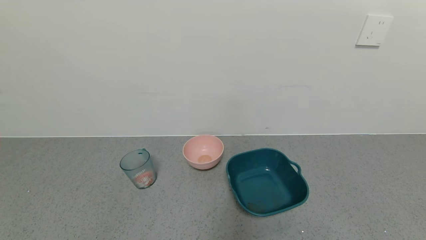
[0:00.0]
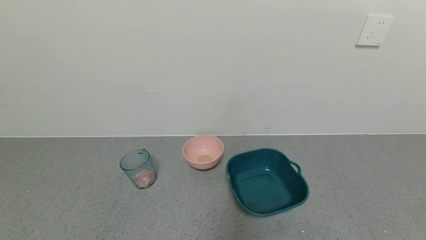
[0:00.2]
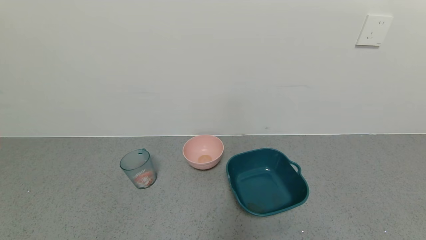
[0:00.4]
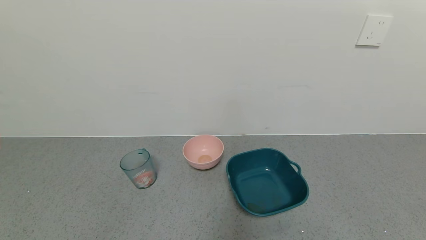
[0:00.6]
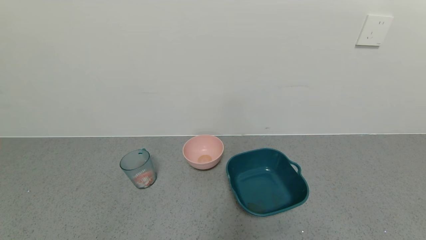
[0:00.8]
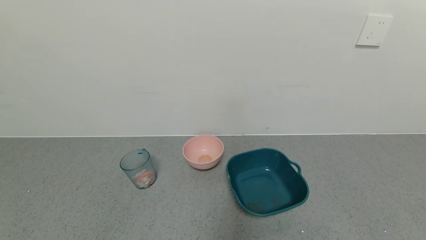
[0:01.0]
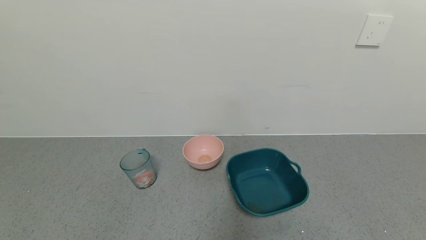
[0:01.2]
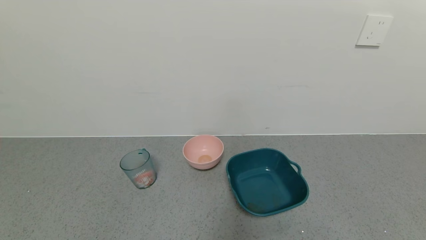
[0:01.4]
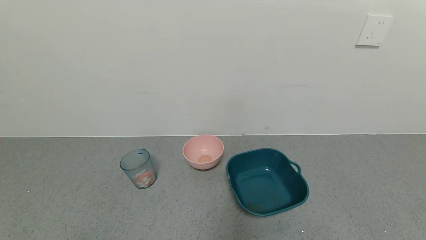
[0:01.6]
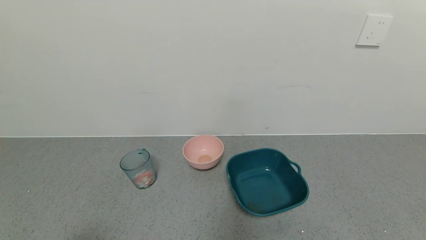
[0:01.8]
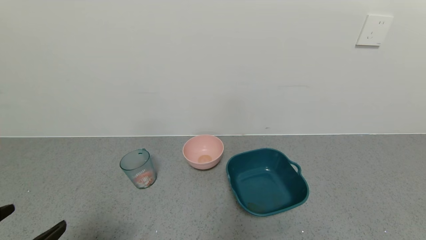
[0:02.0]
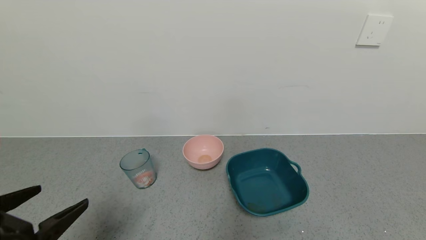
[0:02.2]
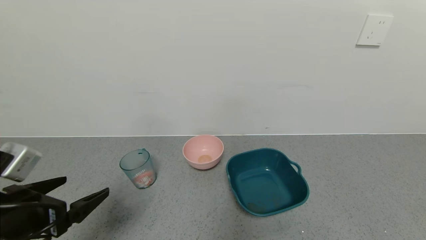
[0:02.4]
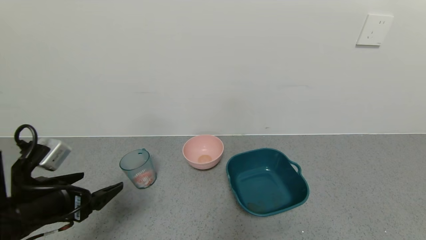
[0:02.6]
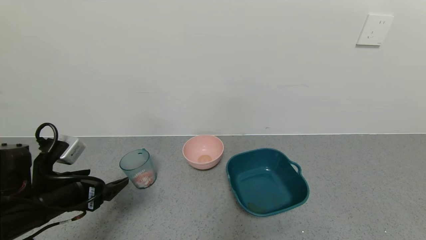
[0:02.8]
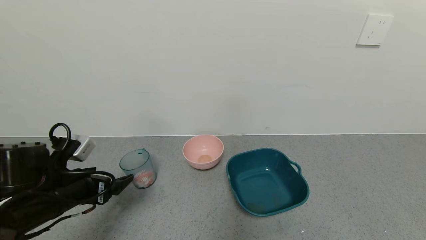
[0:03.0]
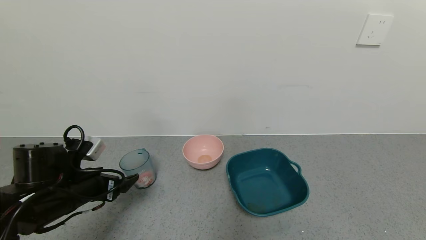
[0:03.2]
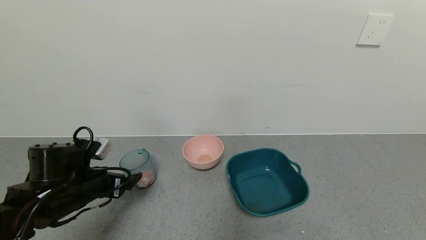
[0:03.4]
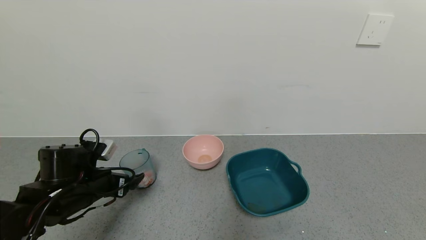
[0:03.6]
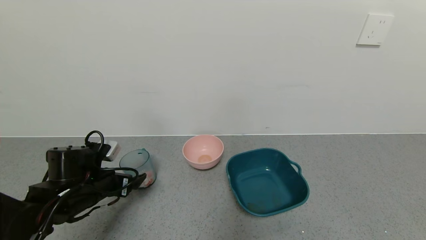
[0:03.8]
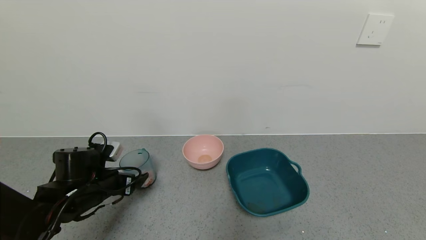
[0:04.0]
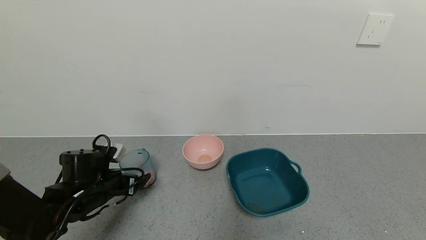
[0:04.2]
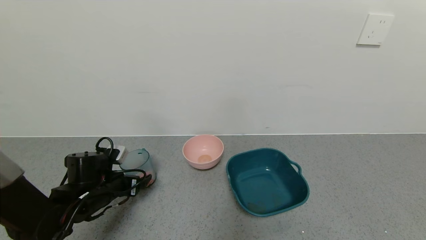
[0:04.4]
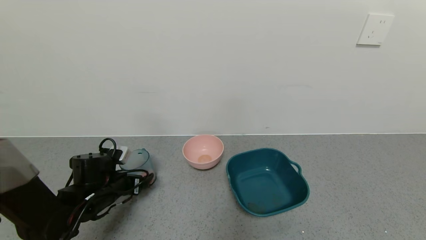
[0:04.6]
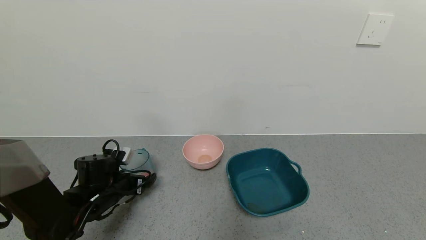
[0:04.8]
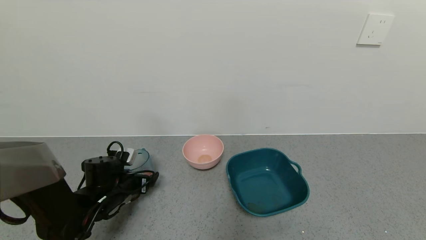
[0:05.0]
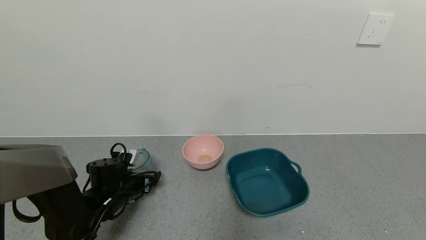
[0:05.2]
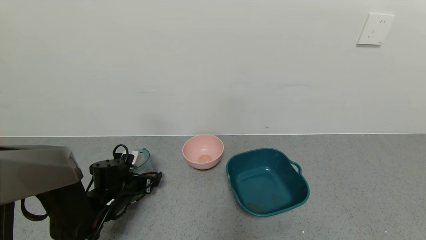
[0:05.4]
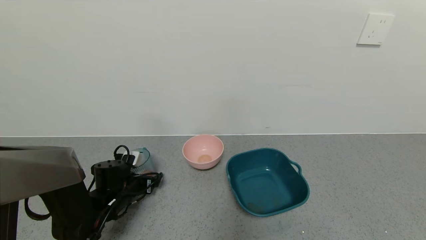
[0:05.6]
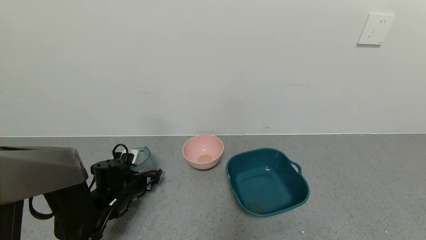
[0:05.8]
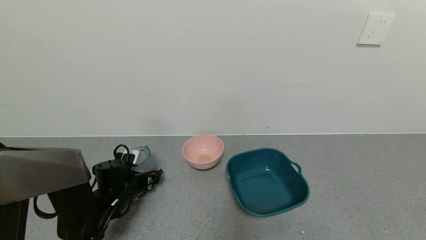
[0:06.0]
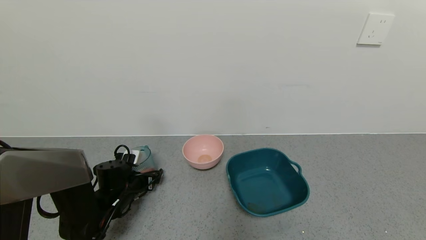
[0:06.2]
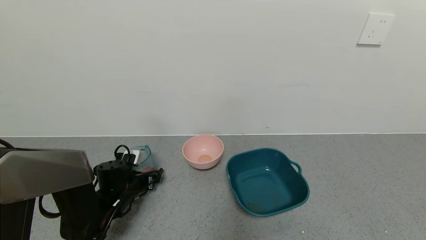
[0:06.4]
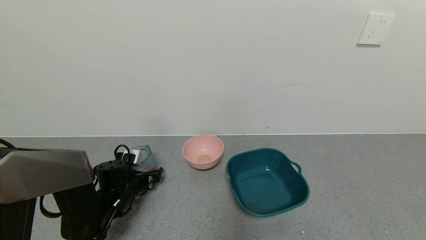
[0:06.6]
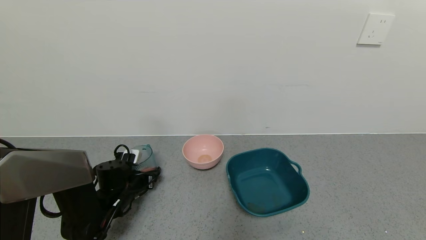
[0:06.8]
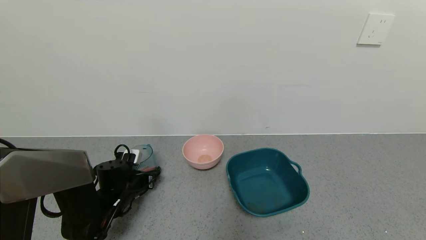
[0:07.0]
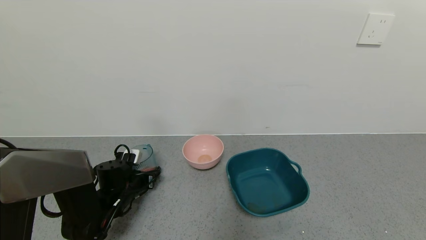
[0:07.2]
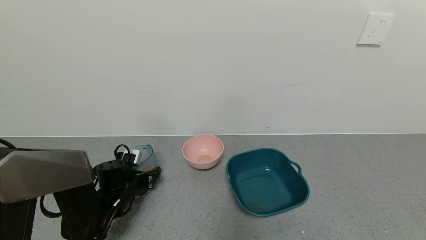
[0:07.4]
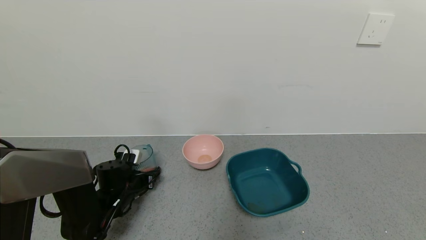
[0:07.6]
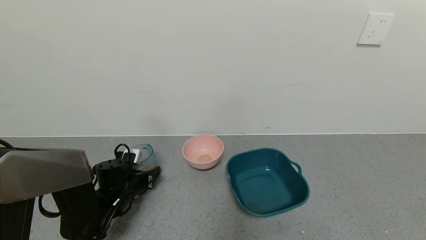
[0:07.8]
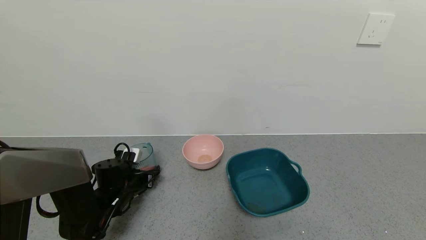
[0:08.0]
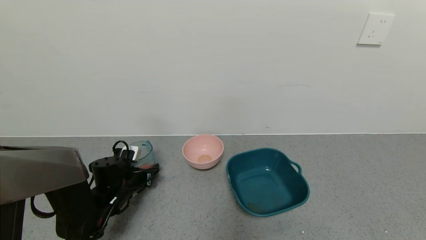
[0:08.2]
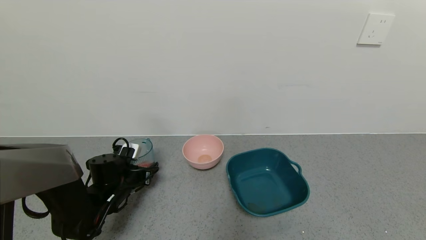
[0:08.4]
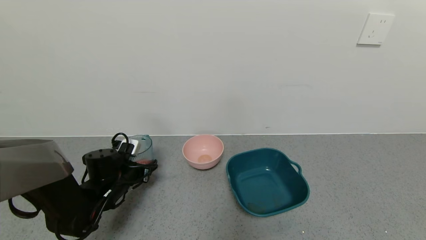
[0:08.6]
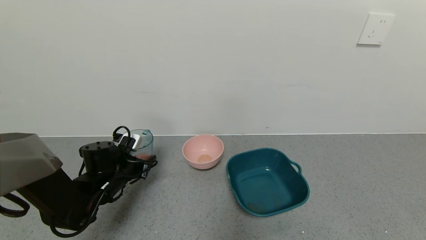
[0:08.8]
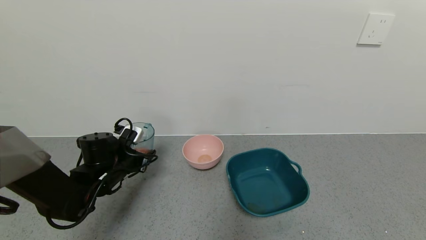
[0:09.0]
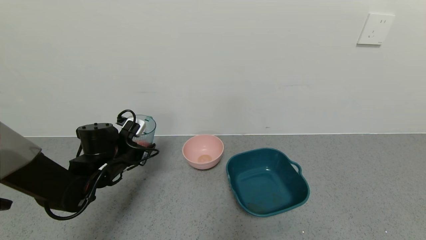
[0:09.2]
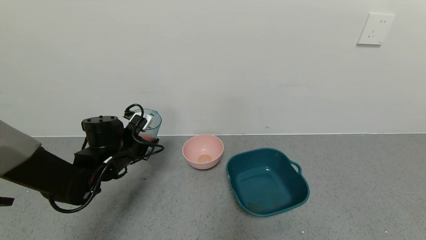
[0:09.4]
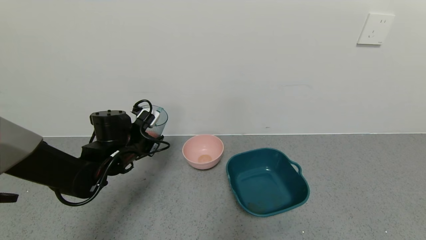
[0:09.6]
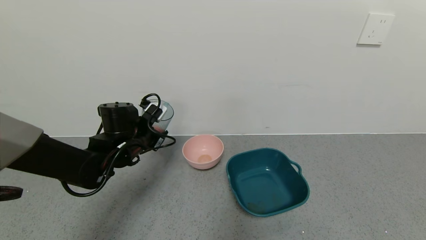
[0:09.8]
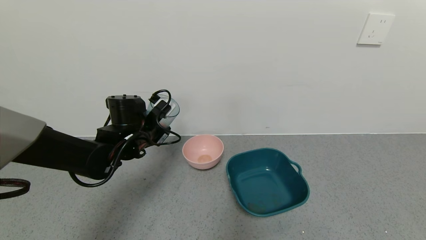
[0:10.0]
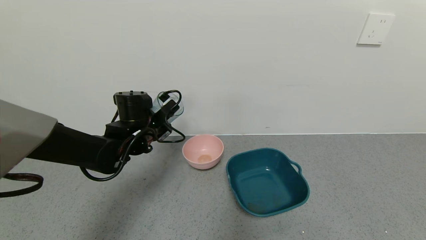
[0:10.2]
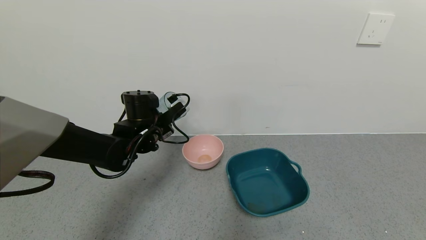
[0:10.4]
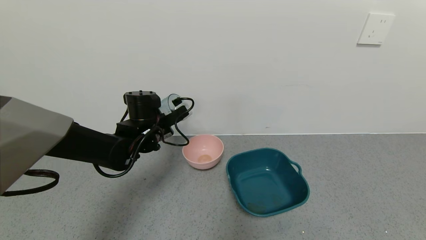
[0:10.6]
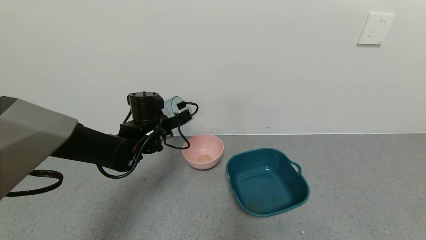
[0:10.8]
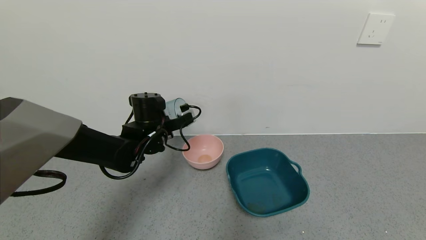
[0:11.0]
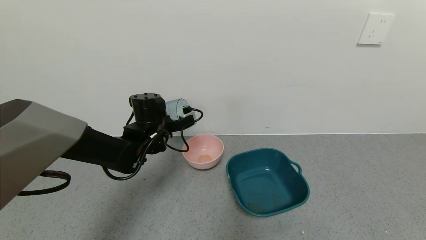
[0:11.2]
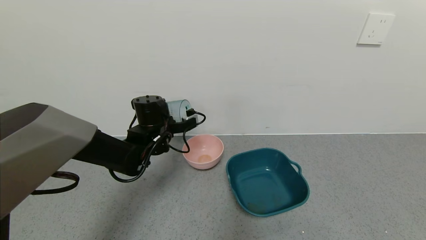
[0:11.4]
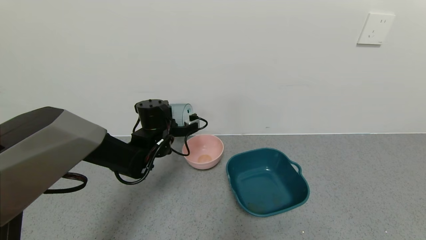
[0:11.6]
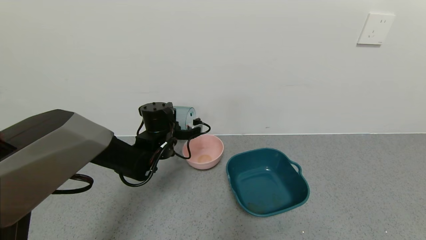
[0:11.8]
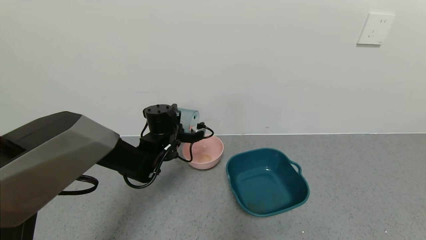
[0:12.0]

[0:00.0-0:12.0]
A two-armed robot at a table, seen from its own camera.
Task of the whole recording: use a gripper to pick up the cup and pour the solid into a bowl or tray.
Step, 0:00.0 to 0:06.4: Grasp the glass of shrimp with the left gripper.
0:01.6 to 0:03.0: The left gripper heads forward, covering approximately 25 cm.
0:03.0 to 0:04.4: The left gripper shifts about 10 cm downward and forward.
0:04.4 to 0:06.0: The left gripper goes about 5 cm downward.
0:06.0 to 0:07.6: The left gripper closes.
0:07.6 to 0:09.0: The left gripper is displaced upward by some 10 cm.
0:09.0 to 0:10.4: The left gripper shifts some 10 cm to the right, upward and forward.
0:10.4 to 0:12.0: The left gripper ends up roughly 5 cm from where it was.

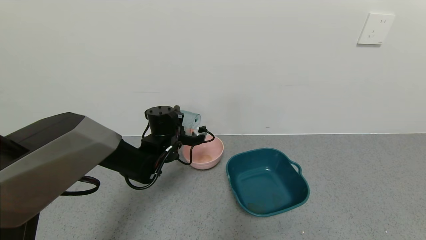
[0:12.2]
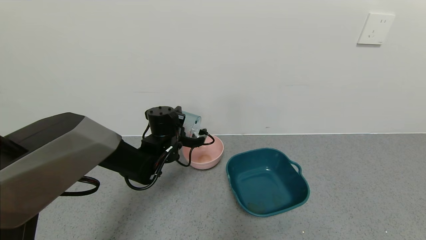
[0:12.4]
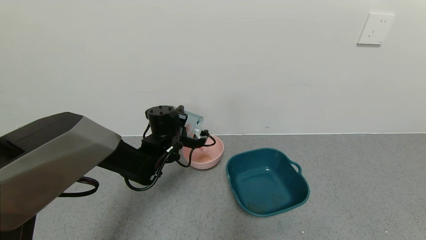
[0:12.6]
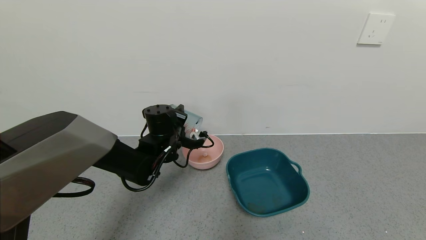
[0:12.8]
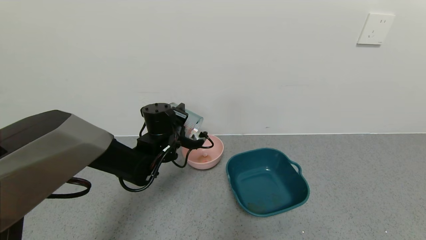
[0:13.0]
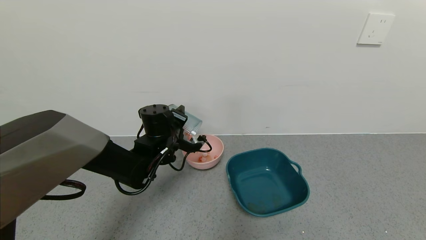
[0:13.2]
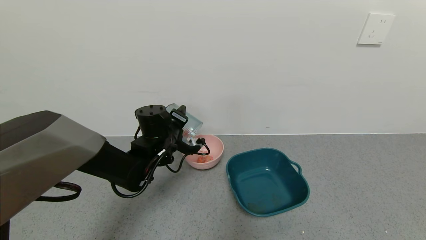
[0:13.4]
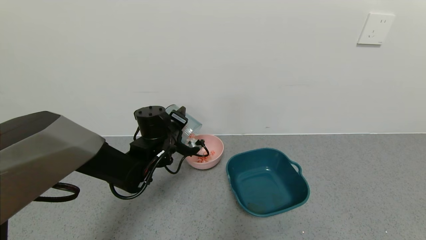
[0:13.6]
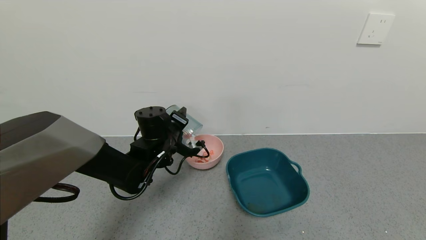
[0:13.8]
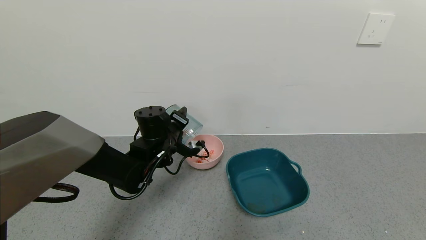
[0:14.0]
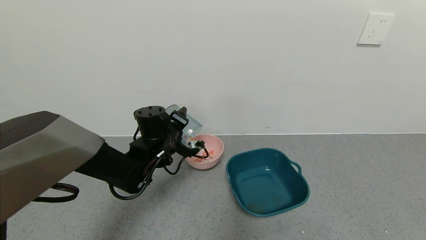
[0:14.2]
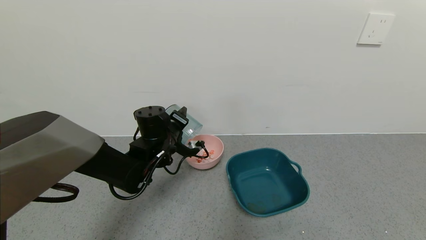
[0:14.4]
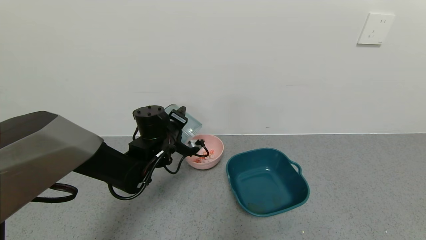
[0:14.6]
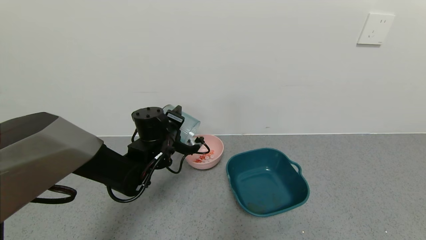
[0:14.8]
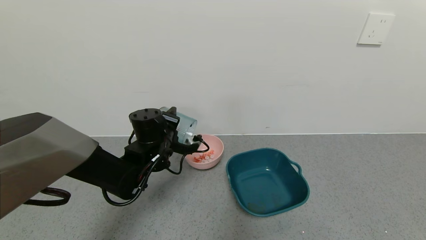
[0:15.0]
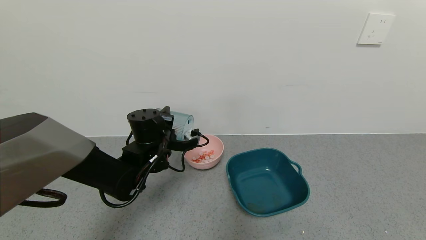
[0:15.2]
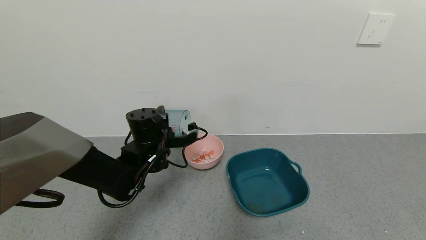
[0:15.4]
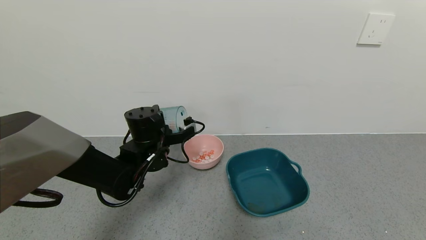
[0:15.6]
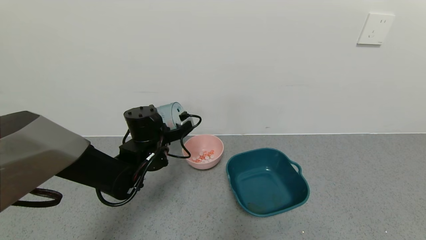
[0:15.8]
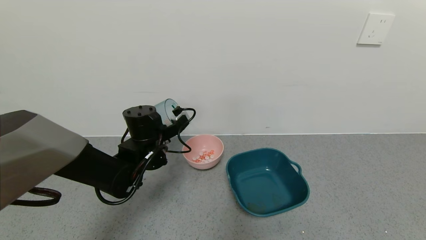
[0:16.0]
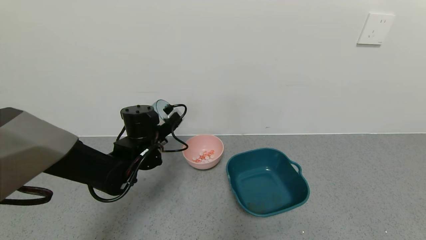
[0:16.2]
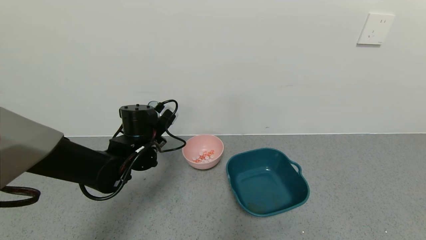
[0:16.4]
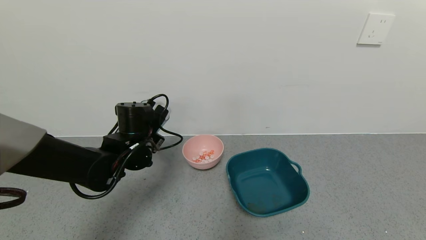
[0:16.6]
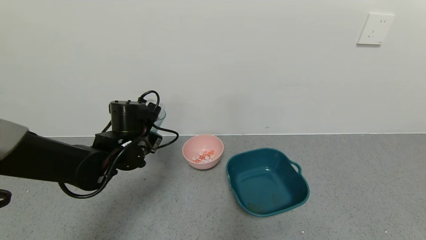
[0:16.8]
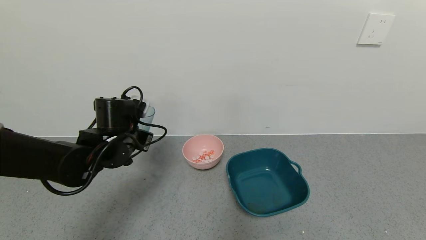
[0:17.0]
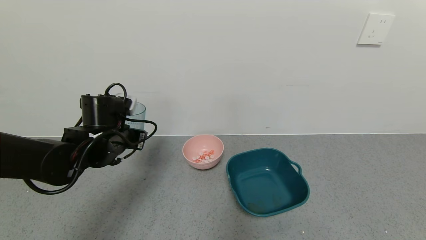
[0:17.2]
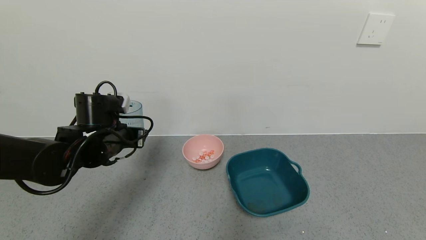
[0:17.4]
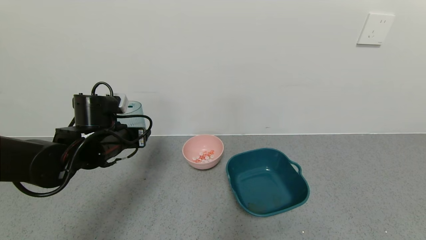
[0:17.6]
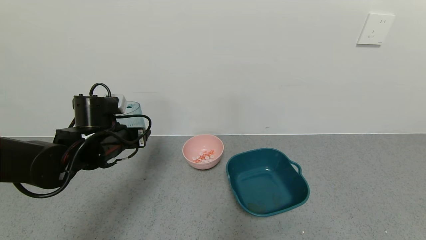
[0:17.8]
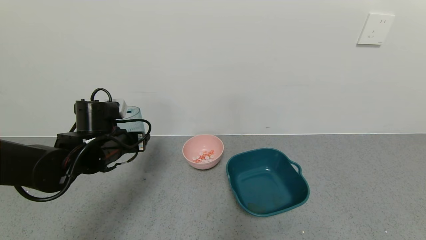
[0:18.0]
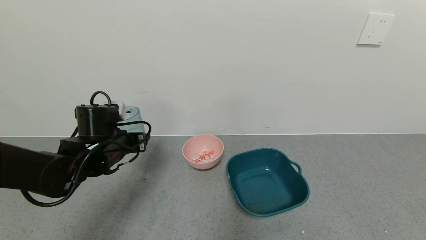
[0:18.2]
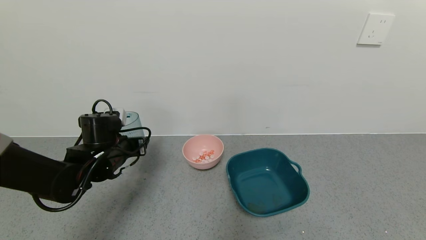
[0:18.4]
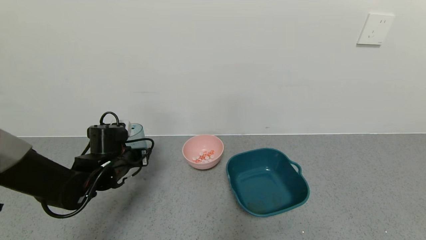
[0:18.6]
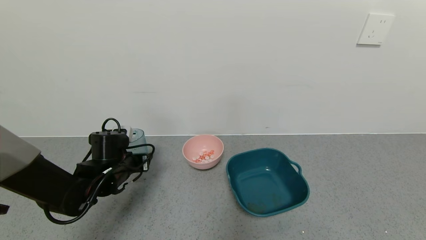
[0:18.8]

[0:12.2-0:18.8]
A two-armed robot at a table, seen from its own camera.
Task of the whole recording: use a gripper to pick up the cup and pour the solid into a bowl or tray.
Step, 0:12.2 to 0:15.4: Pour the shrimp into the pink bowl with the left gripper.
0:15.4 to 0:17.2: The left gripper shifts some 10 cm to the left.
0:17.2 to 0:18.8: The left gripper moves downward, roughly 10 cm.
